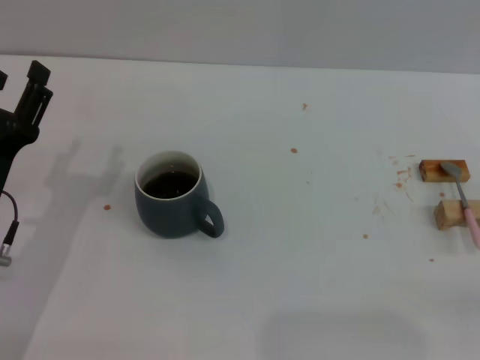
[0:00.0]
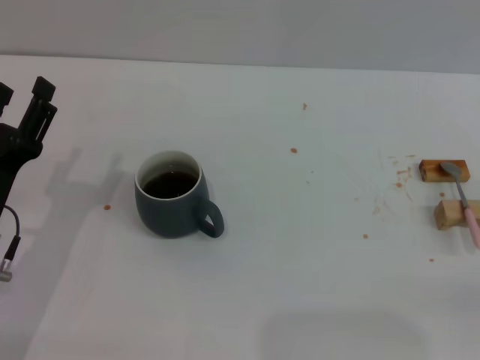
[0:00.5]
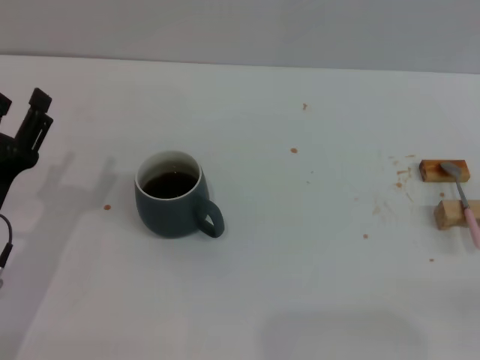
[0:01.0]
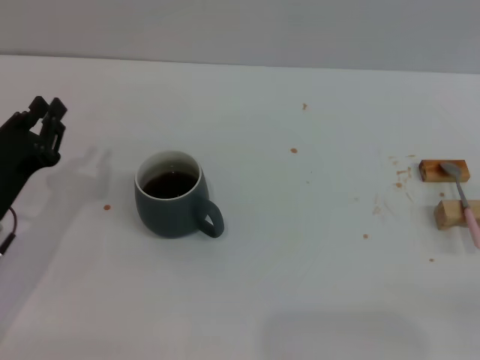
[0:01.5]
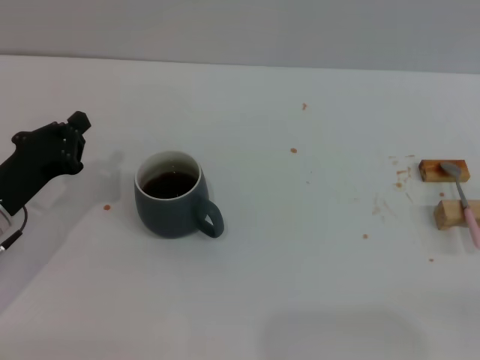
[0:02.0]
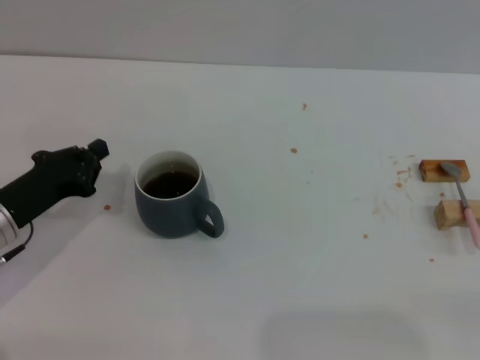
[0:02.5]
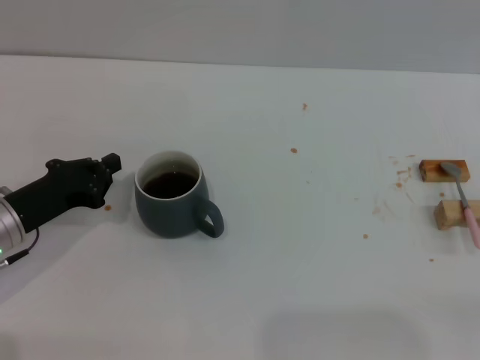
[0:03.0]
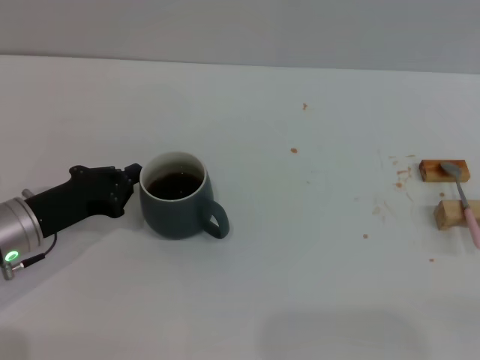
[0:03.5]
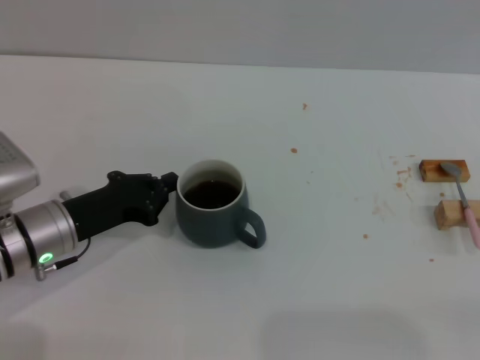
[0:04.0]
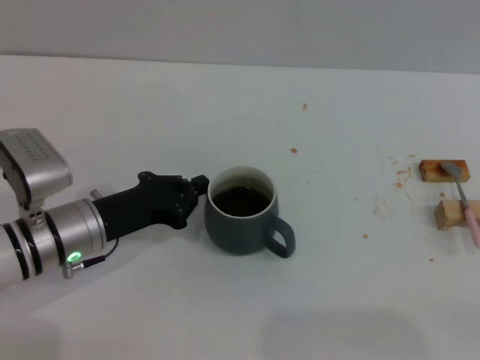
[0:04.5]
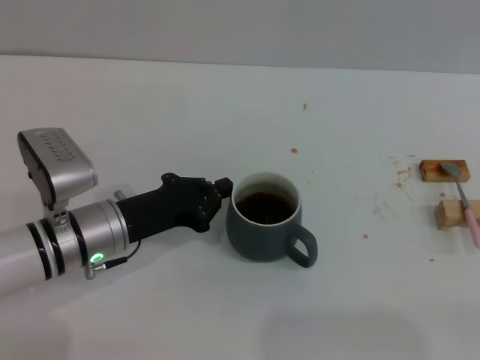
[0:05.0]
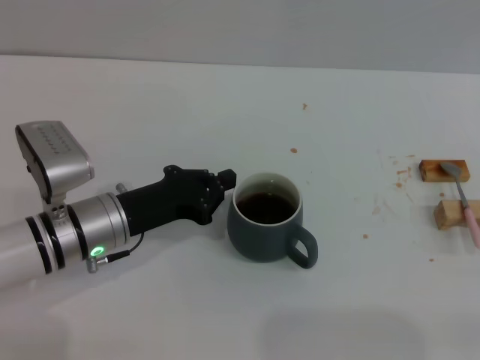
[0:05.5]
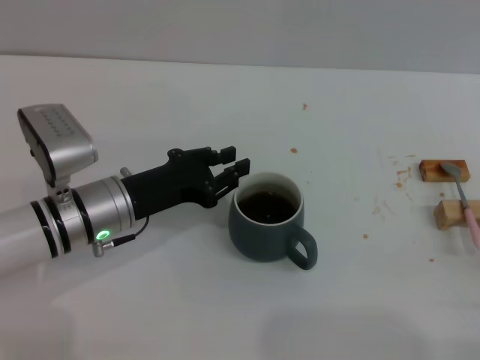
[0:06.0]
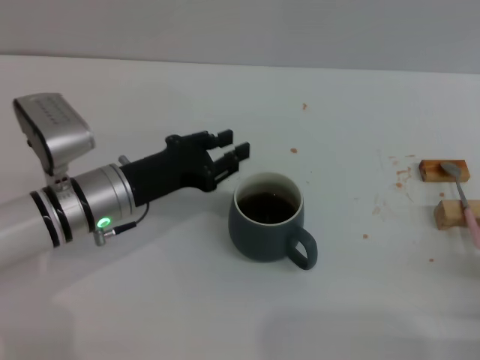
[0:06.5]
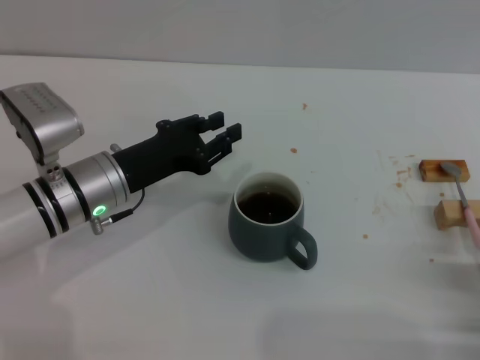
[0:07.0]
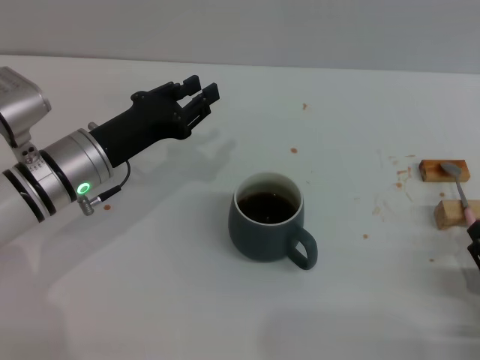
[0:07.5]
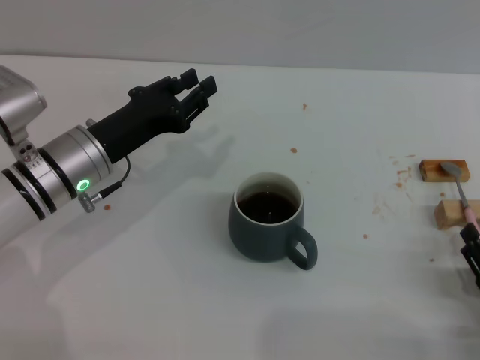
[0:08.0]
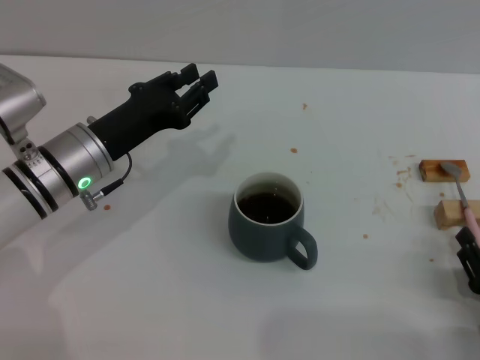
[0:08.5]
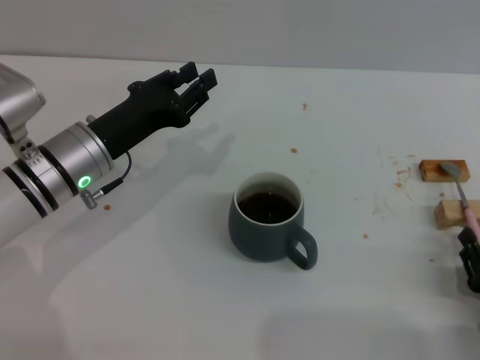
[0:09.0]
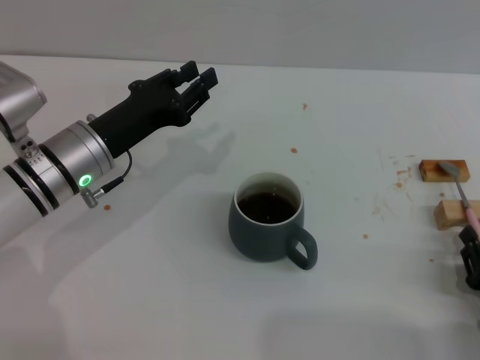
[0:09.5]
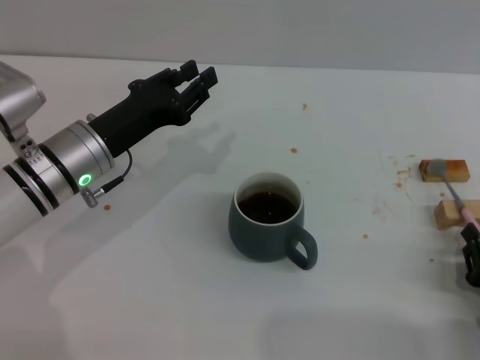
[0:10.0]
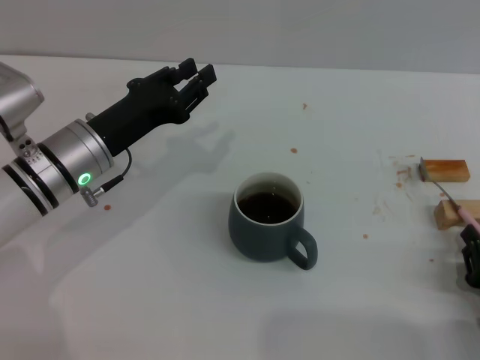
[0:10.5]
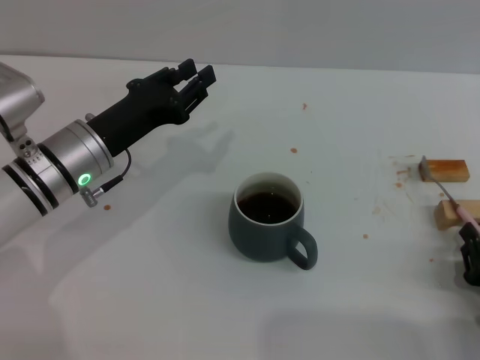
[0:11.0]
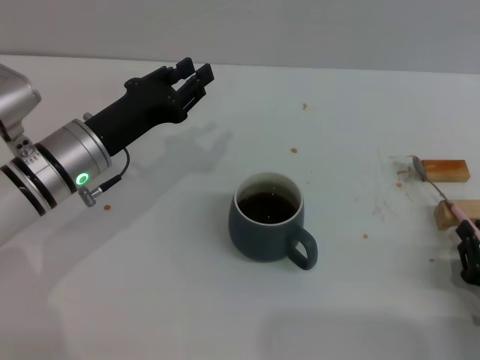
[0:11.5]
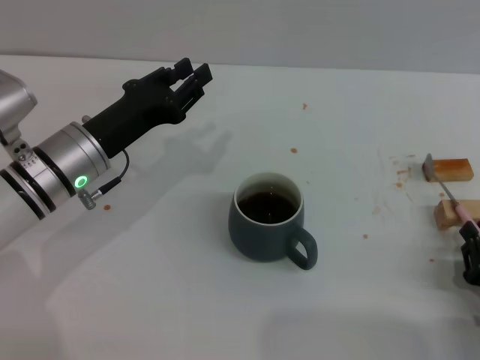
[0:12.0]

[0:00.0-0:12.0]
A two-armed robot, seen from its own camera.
Task of the whole recording: Move the grey cup to the center, lift the pink spoon, stir it three times in the cup, and put the spoon into the cup.
Step, 0:00.0 to 0:06.5: Move the cup with coffee to the center of view with the left gripper.
0:00.0 to 0:02.0: The left gripper closes its fingers.
0:02.0 to 0:04.0: The left gripper ends up some 5 cm from where it was.
0:04.0 to 0:06.0: The left gripper goes some 5 cm to the right, while the right gripper changes place by about 5 cm.
0:06.0 to 0:08.0: The right gripper moves approximately 5 cm.
0:08.0 to 0:10.0: The right gripper closes.
0:10.0 to 0:12.0: Neither gripper changes place.

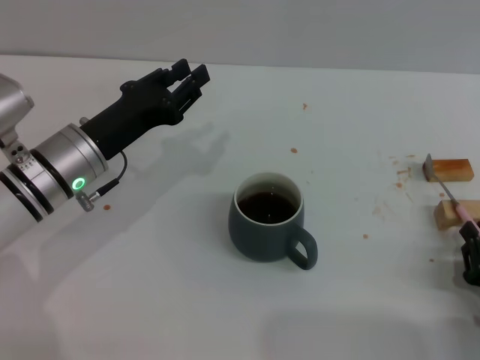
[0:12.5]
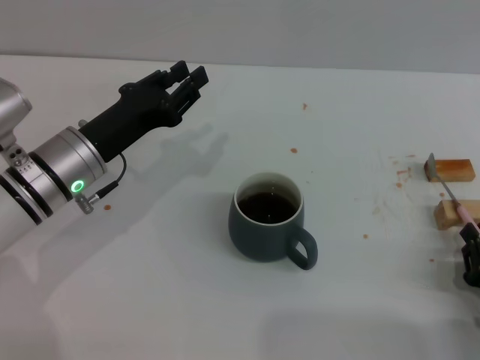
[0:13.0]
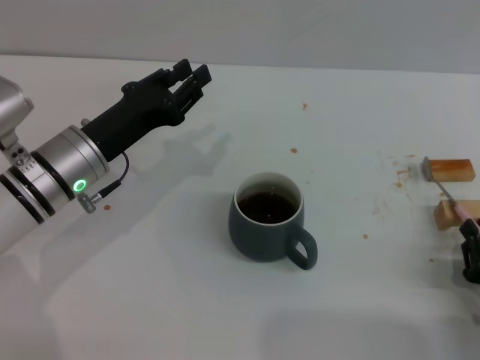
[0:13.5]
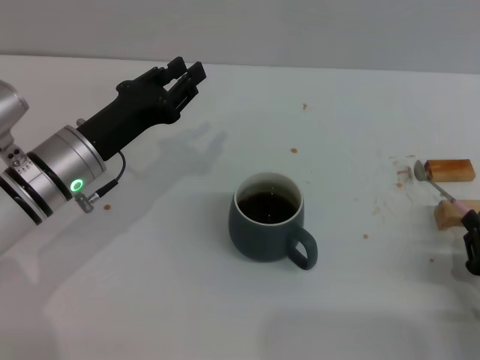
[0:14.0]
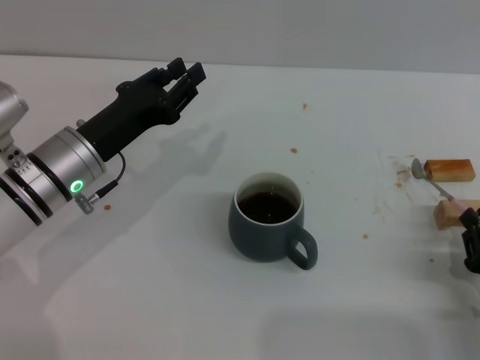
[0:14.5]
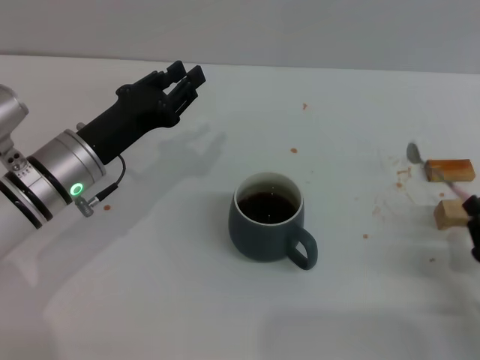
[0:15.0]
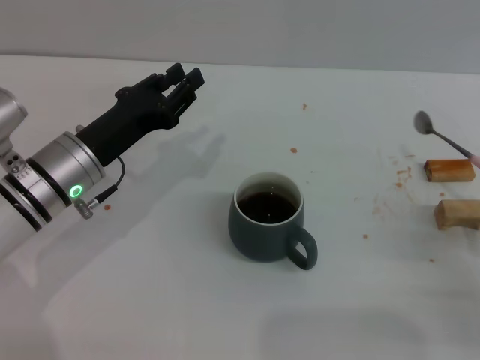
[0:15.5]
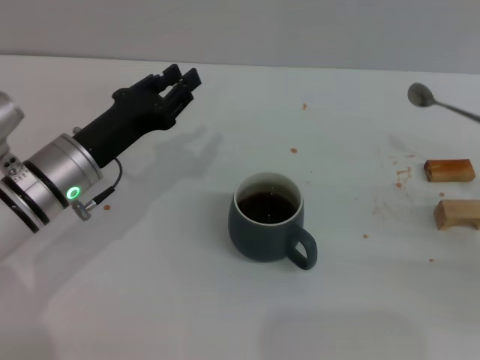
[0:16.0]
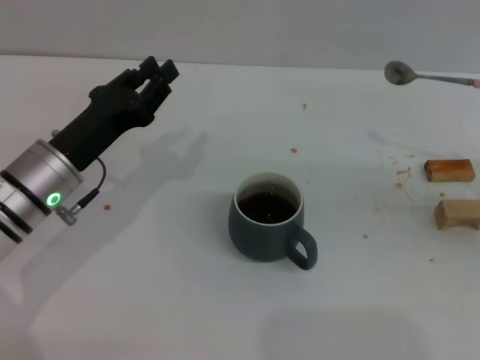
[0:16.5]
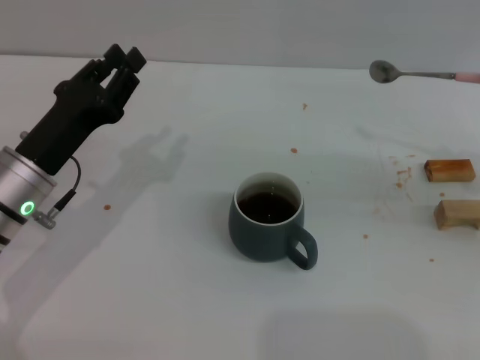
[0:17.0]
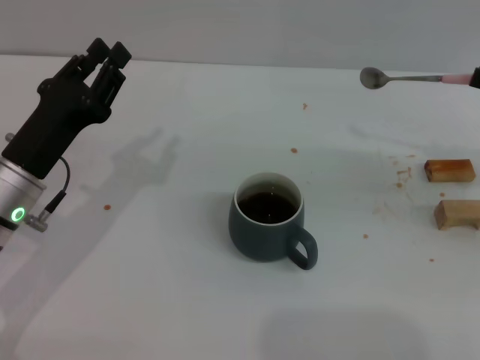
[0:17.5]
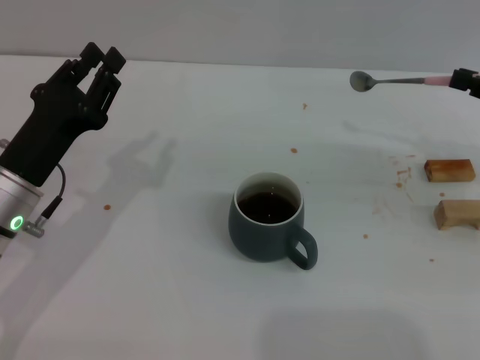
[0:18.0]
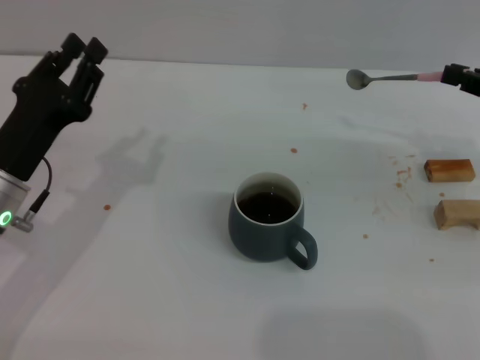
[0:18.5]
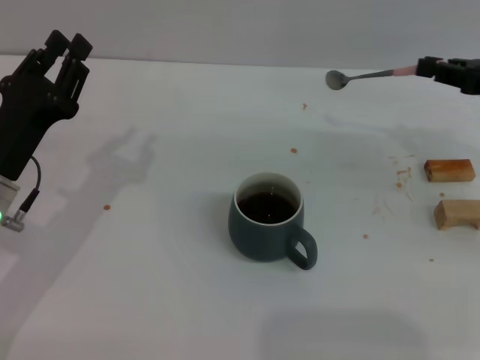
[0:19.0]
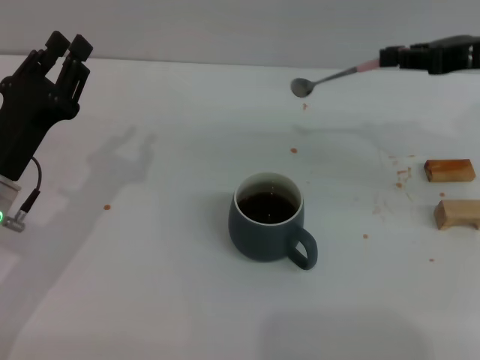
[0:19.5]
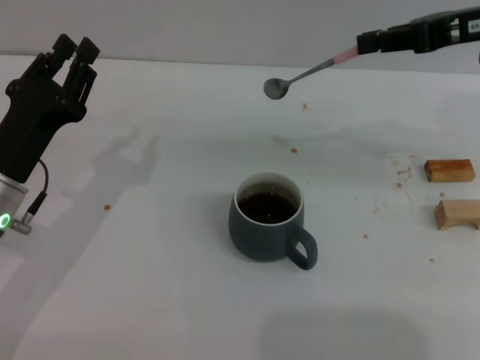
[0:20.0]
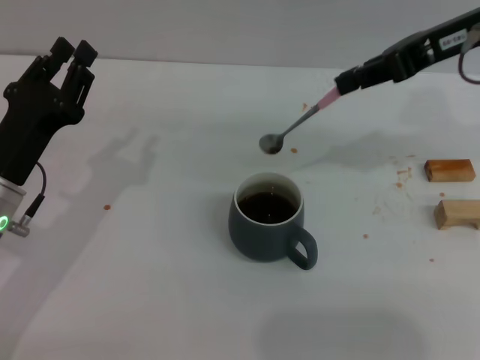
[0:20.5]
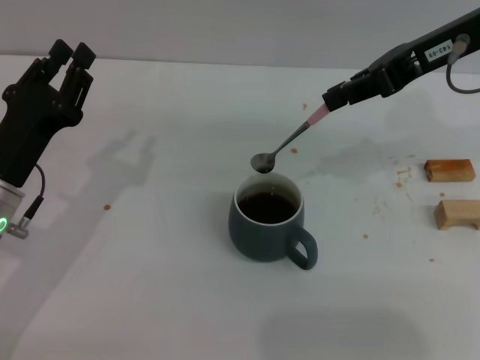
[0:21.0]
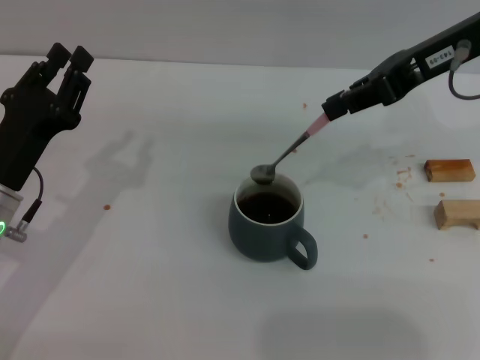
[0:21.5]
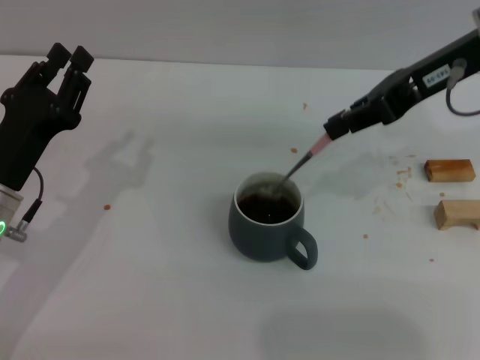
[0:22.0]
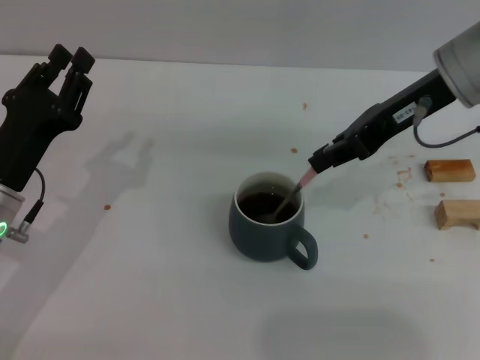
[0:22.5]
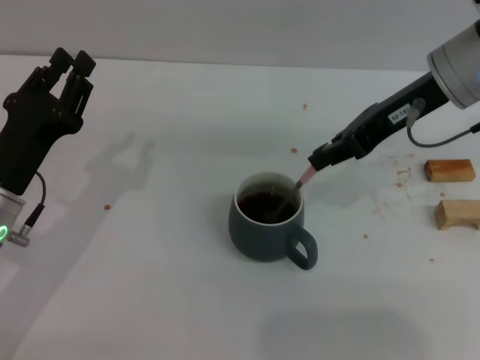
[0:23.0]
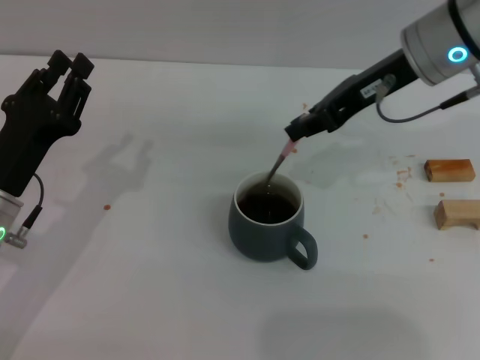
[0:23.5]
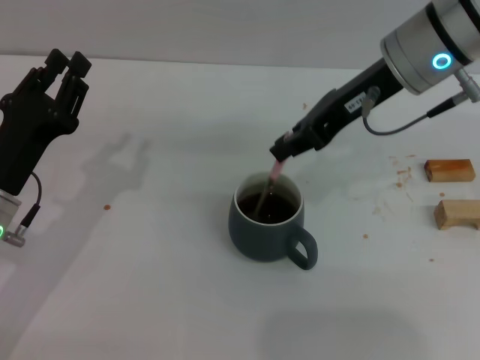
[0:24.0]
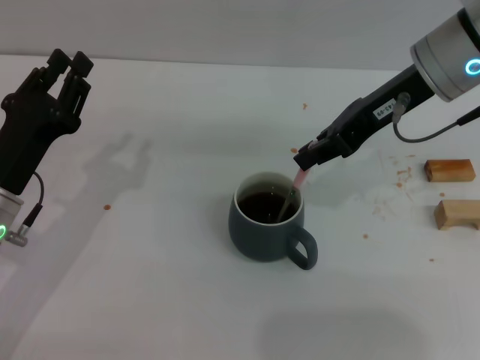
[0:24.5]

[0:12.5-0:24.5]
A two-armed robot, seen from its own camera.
Task of the whole recording: Move the grey cup to the center, lift the pink spoon, stir it three times in the cup, and put the spoon into the cup.
Step, 0:12.5 to 0:15.5: Pick up the spoon with the right gripper.
0:12.5 to 0:14.5: The grippers stay close to where they were, moving slightly.
0:14.5 to 0:16.5: The right gripper heads upward, forward and to the right, covering about 20 cm.
0:16.5 to 0:18.5: The right gripper heads forward, covering some 5 cm.
0:18.5 to 0:20.5: The right gripper goes some 15 cm to the left, upward and forward.
0:20.5 to 0:22.5: The right gripper moves roughly 5 cm.
0:22.5 to 0:24.5: There are only small adjustments of the grippers.

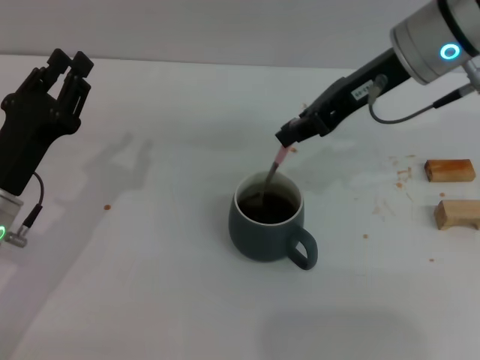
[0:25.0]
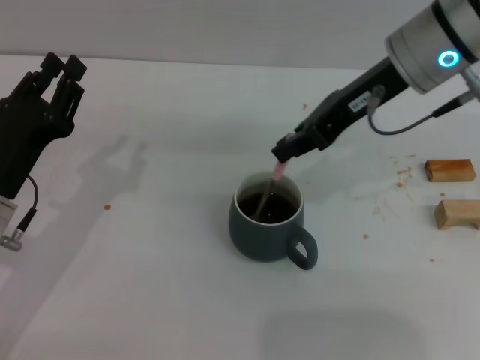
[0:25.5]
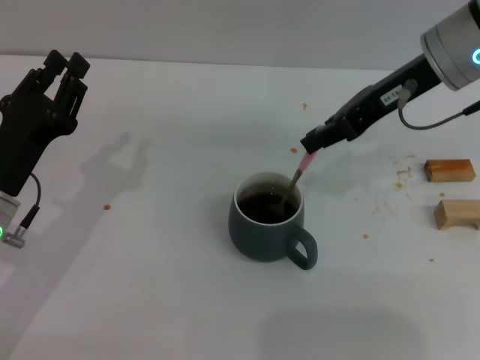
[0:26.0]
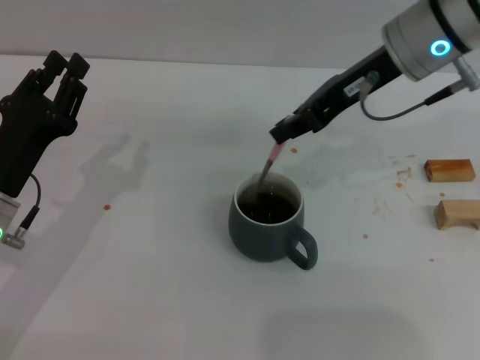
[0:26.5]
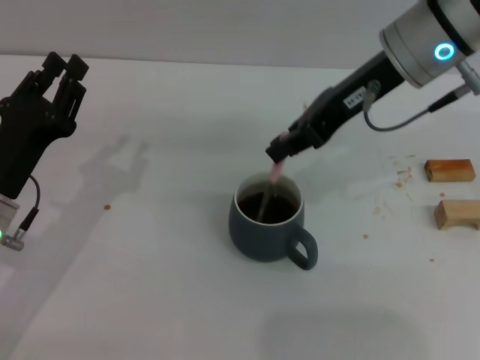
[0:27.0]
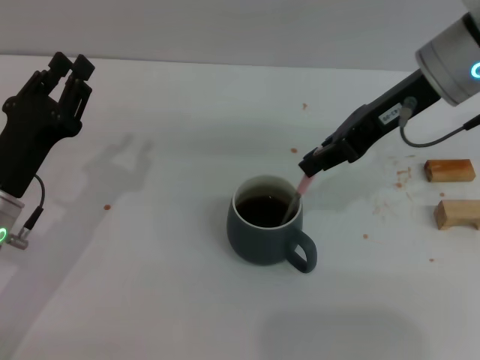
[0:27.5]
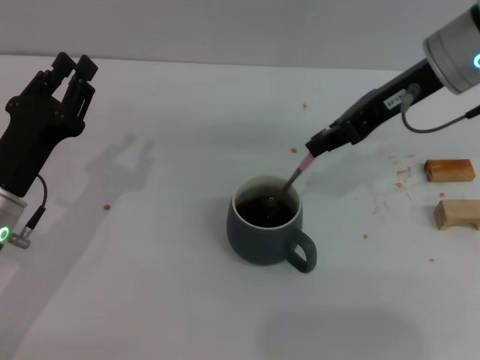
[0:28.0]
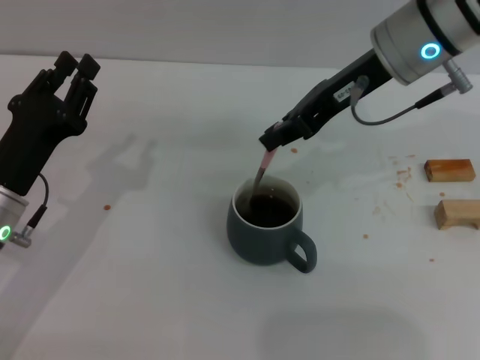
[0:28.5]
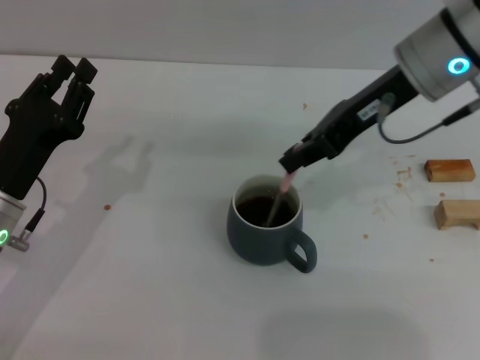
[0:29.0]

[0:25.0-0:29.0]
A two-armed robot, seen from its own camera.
Task of the whole recording: Move the grey cup to the center, lift the pink spoon, stir it three times in the cup, and put the spoon into the cup.
0:25.0 to 0:29.0: There are only small adjustments of the grippers.
